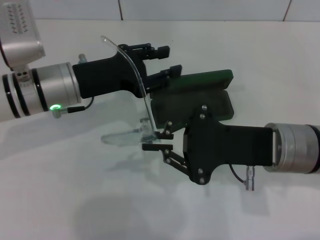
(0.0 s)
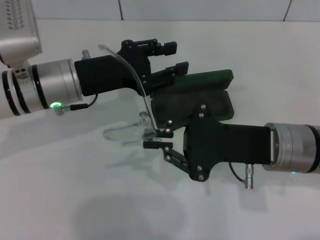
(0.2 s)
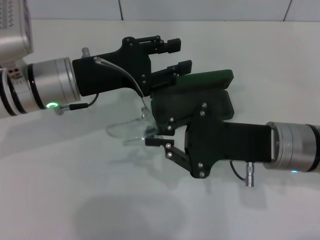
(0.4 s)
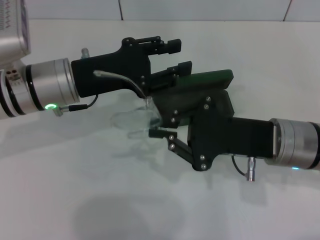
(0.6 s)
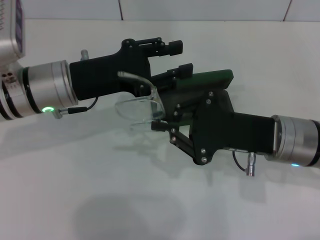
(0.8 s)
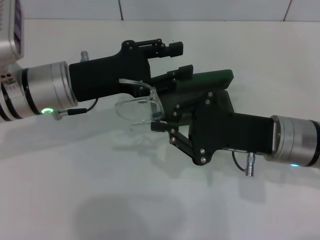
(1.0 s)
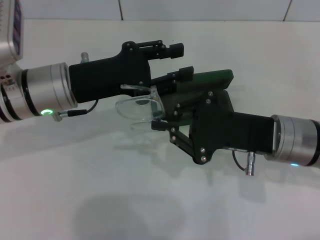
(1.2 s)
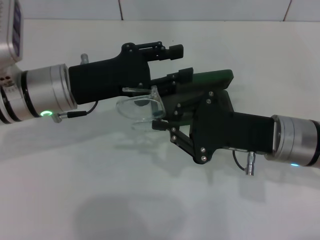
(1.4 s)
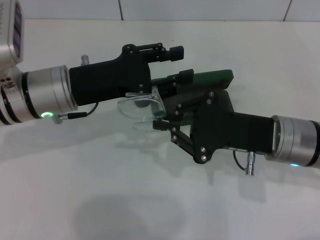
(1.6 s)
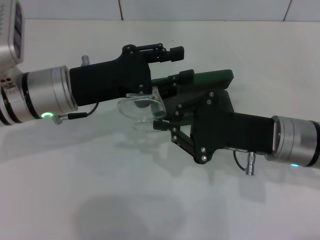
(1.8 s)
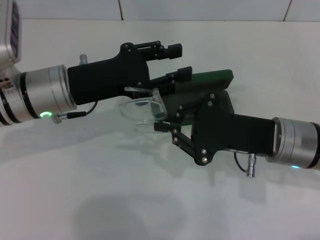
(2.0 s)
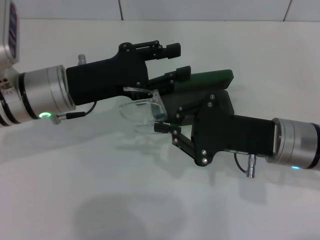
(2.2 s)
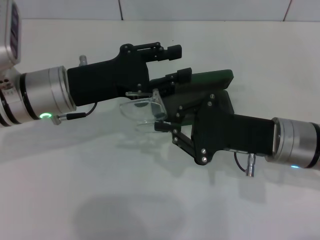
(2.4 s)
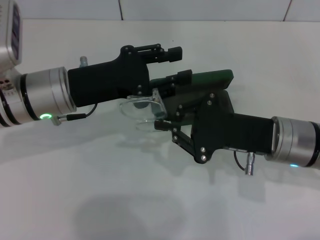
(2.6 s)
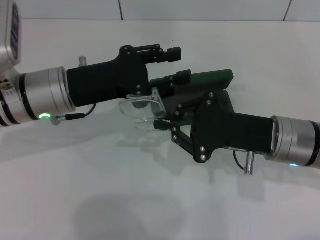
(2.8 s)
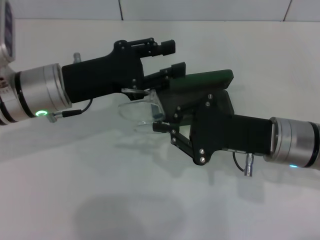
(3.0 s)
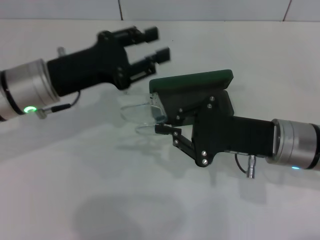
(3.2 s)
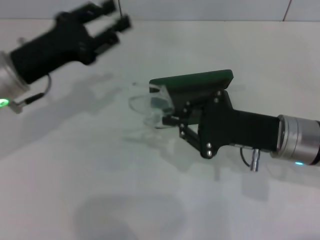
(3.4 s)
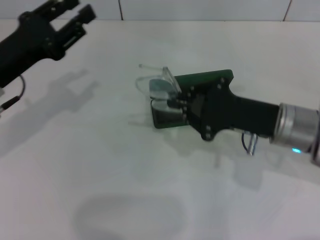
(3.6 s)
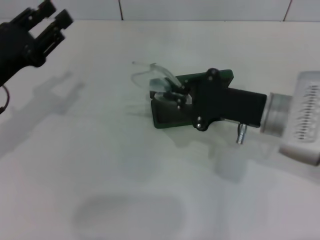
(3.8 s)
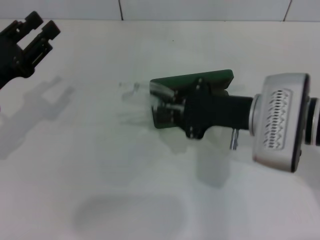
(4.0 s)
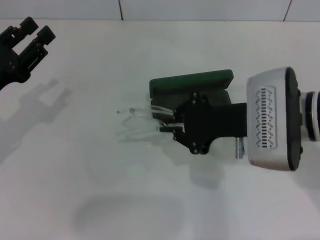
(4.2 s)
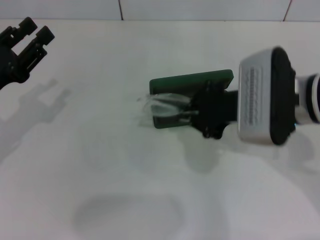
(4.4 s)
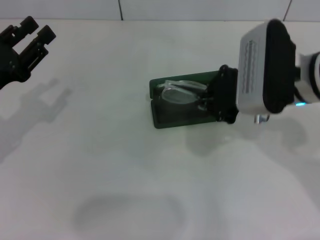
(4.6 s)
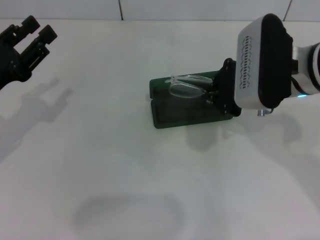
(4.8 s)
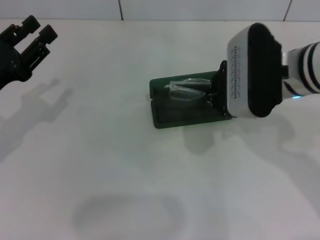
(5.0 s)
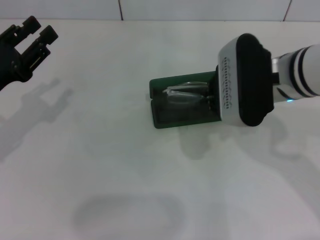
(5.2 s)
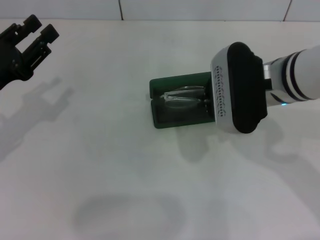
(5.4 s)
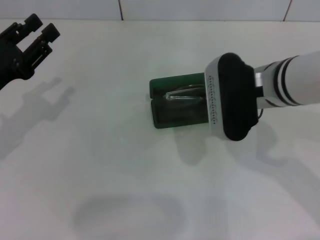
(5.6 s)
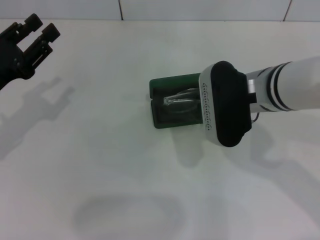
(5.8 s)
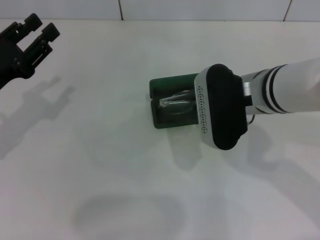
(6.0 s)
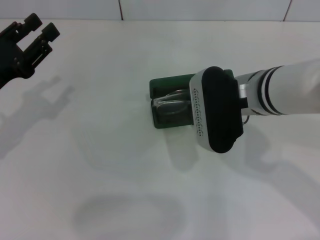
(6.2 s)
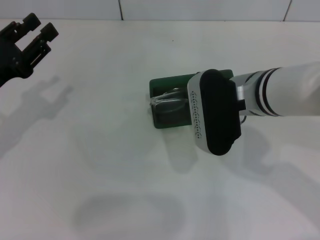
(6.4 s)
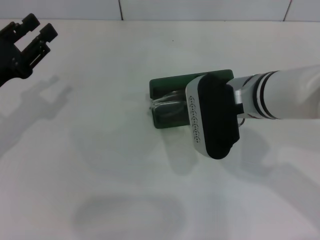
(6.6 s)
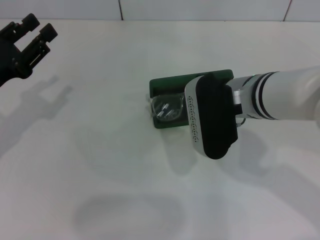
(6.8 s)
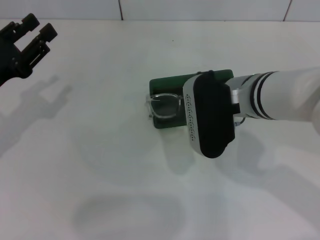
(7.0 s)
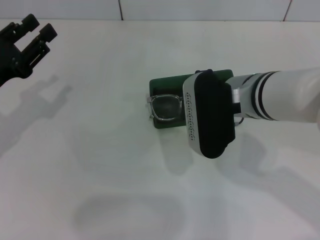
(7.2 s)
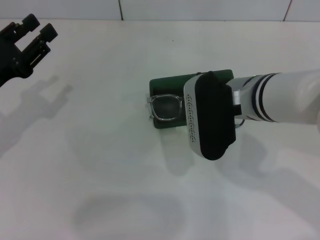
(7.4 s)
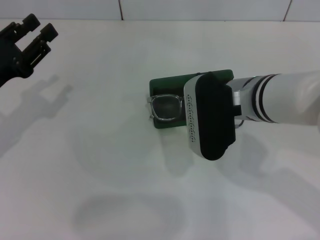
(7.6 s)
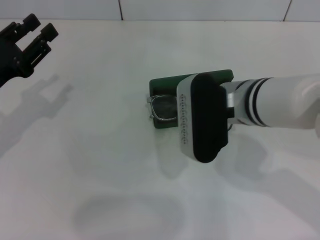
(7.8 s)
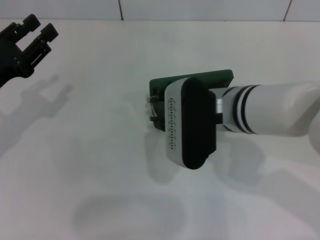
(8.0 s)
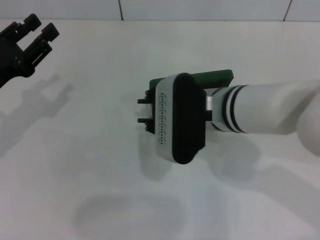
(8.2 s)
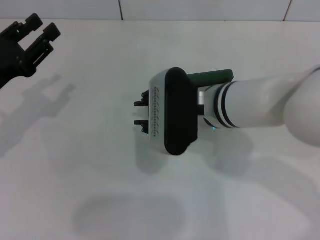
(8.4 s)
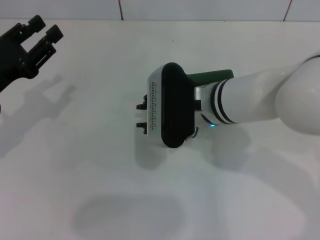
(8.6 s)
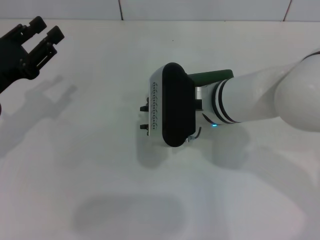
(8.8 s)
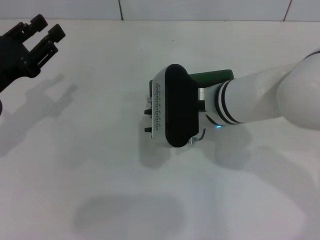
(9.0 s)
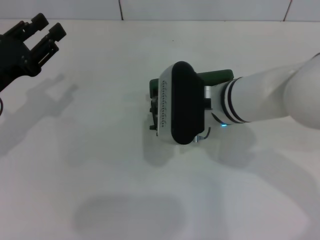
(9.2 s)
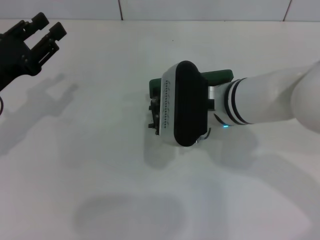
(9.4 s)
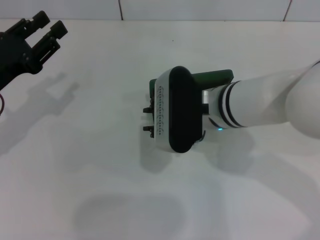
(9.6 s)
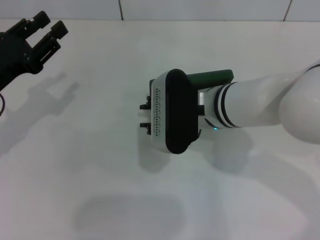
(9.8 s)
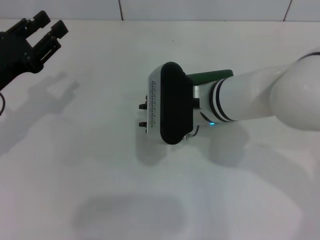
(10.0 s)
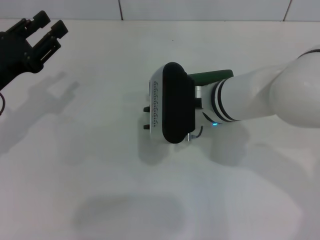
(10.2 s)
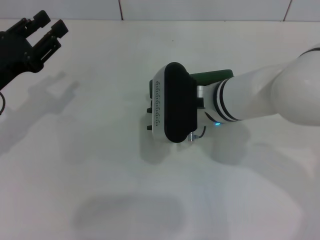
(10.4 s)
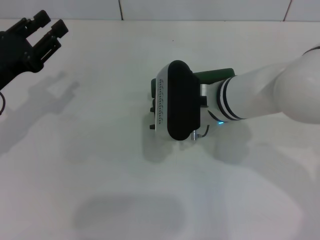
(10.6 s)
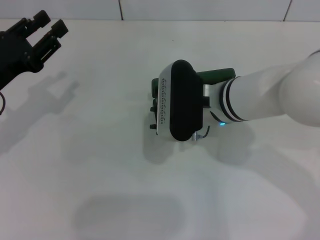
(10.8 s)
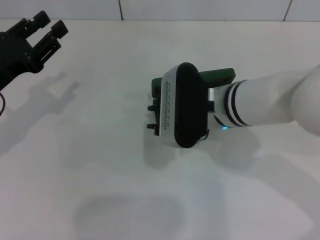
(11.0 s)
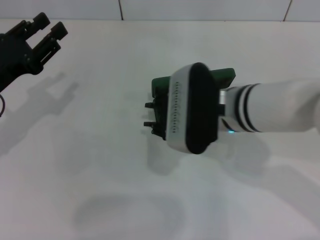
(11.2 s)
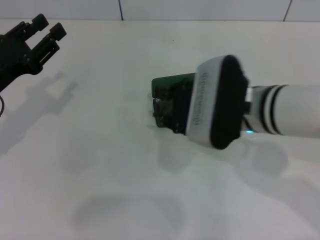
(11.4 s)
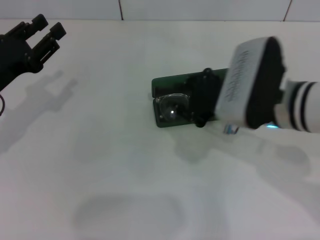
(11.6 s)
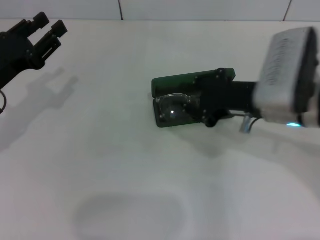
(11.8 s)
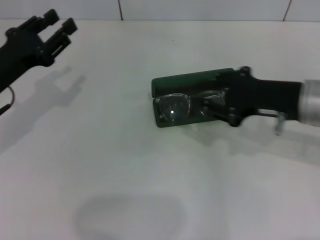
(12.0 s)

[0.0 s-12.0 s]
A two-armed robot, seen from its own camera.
Step, 0.0 to 2.4 s: Fold the frame with your left hand.
Step, 2.6 to 10.8 s: Put the glasses into the case with your right hand.
0.0 to 1.6 s: The grippers stay close to where they were, moving slightly.
1.6 to 3.0 s: The two grippers keep their place.
3.0 to 4.4 s: The right gripper is displaced upward by approximately 5 cm. Meanwhile the left gripper moves to the left, approximately 10 cm.
6.0 to 7.6 s: The grippers stay close to where they were, moving slightly.
7.6 to 9.0 s: The right gripper moves approximately 5 cm.
9.0 to 10.4 s: The two grippers keep their place.
10.4 to 12.0 s: The right gripper goes roughly 15 cm to the right.

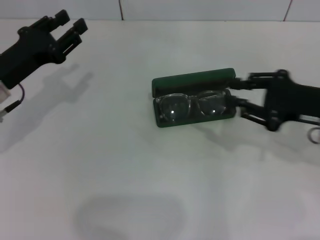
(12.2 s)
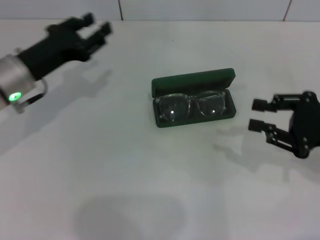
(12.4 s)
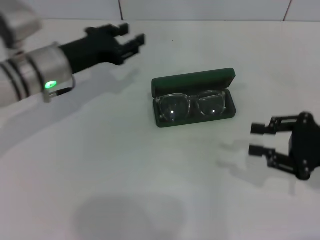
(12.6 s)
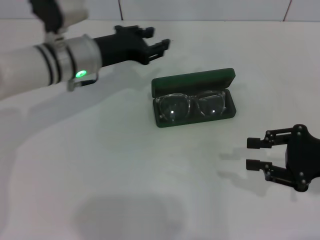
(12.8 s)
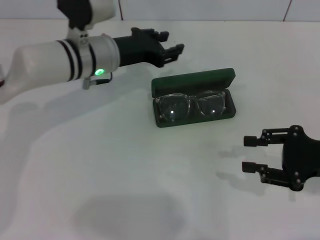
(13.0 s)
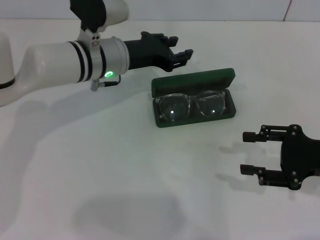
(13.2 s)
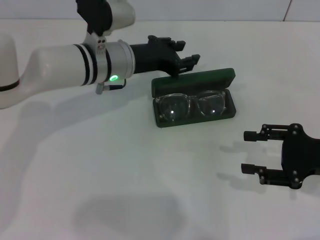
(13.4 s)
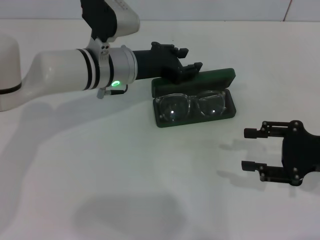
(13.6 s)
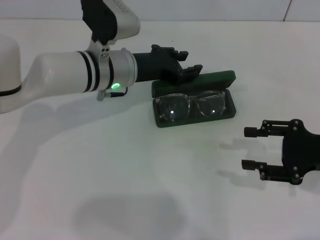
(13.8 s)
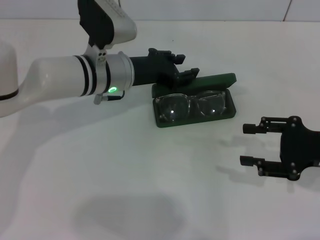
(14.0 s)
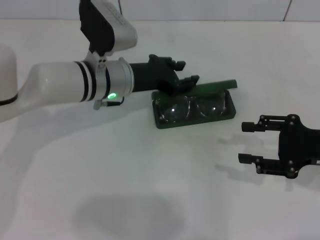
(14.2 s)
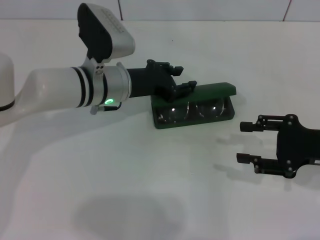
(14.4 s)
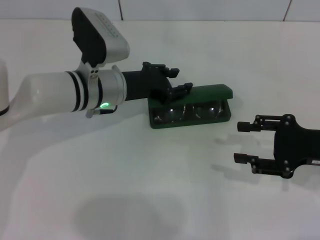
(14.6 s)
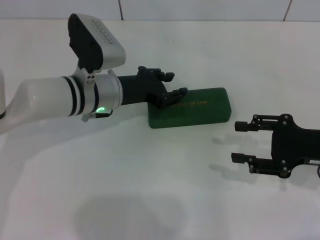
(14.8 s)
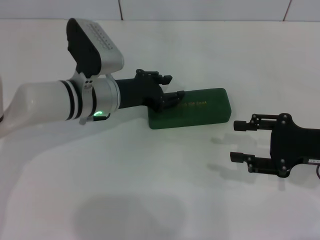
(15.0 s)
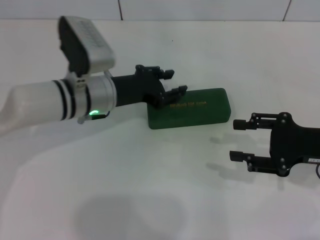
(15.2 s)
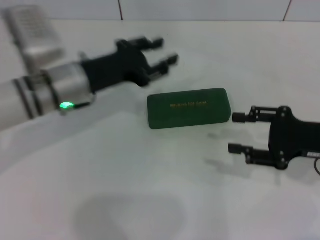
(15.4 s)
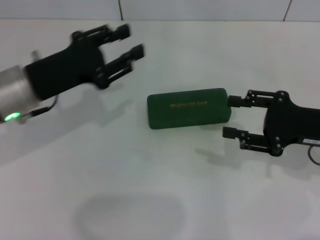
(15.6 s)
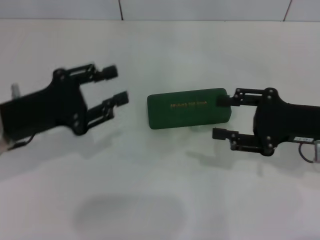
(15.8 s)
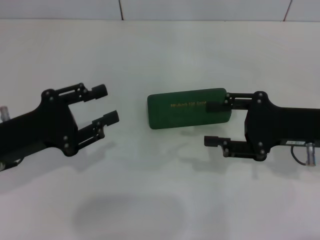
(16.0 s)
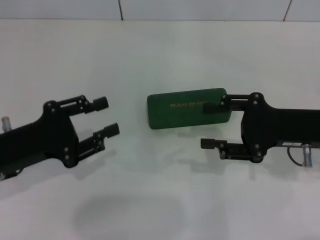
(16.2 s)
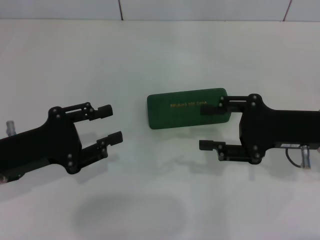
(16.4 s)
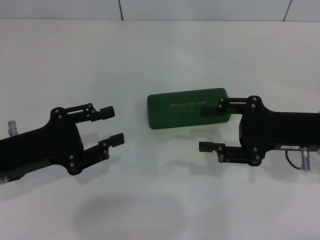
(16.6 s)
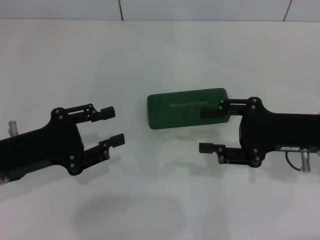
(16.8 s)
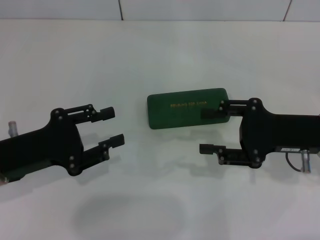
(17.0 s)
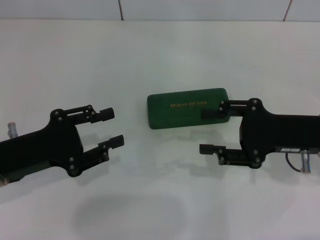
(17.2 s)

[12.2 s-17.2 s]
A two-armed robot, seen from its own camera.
Step, 12.2 to 14.8 s: Close the glasses case with your left hand.
12.2 to 13.8 s: The right gripper ends up some 5 cm from where it was. Meanwhile the left gripper moves to the right and forward, some 20 cm.
13.8 to 15.6 s: The left gripper moves to the left and backward, roughly 15 cm.
15.6 to 17.2 s: The left gripper goes approximately 10 cm backward.
